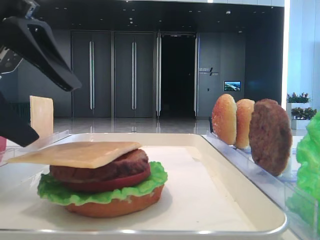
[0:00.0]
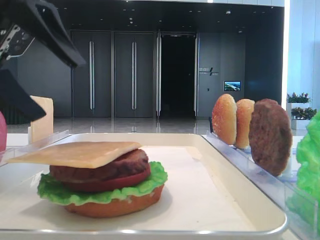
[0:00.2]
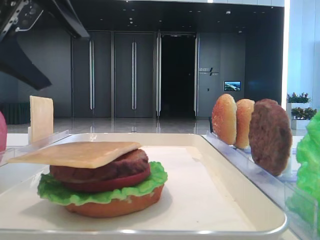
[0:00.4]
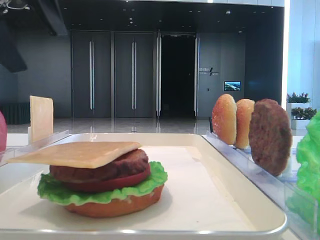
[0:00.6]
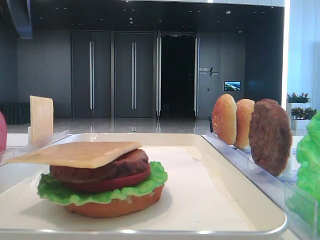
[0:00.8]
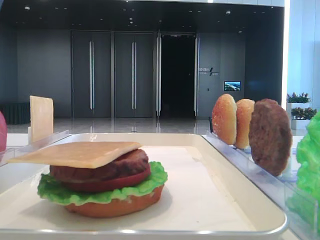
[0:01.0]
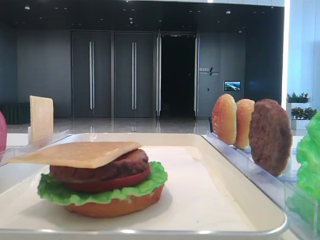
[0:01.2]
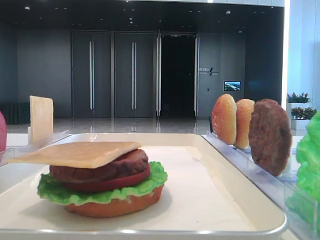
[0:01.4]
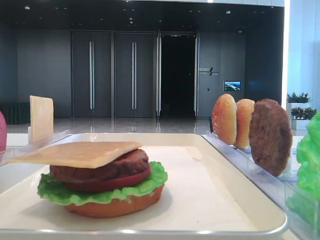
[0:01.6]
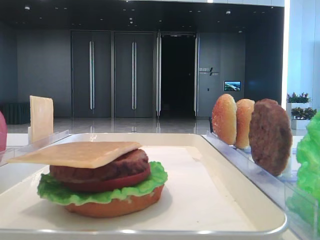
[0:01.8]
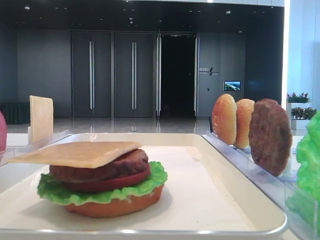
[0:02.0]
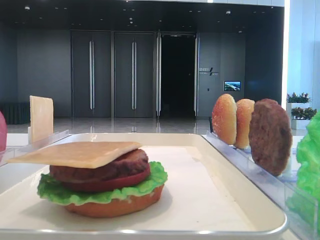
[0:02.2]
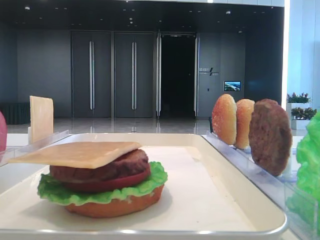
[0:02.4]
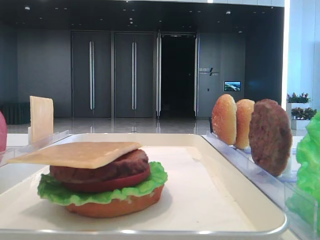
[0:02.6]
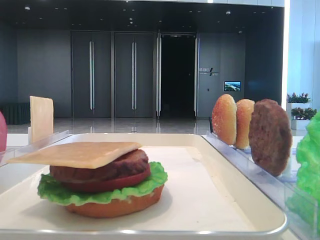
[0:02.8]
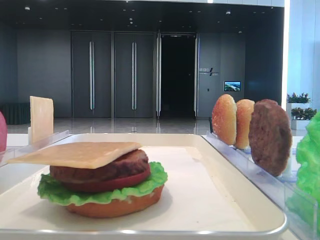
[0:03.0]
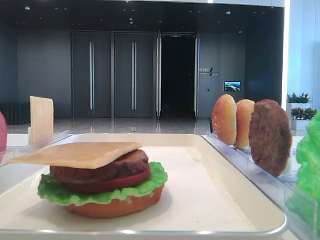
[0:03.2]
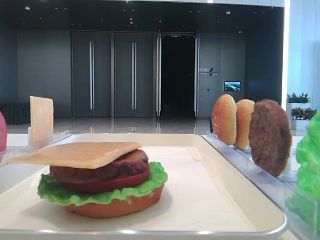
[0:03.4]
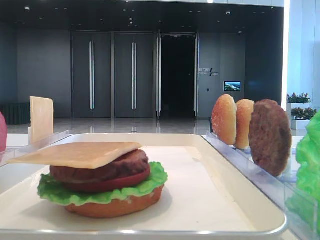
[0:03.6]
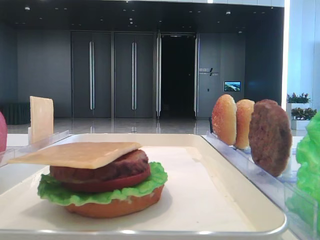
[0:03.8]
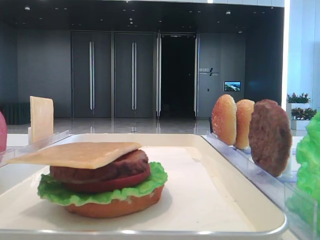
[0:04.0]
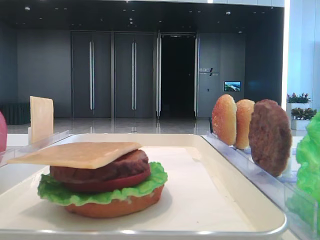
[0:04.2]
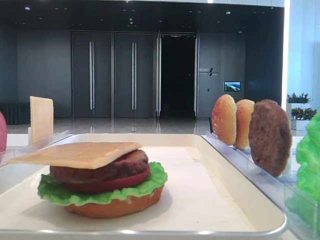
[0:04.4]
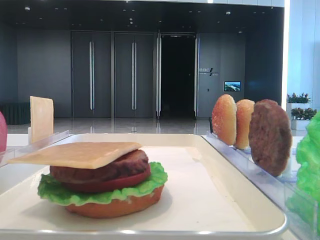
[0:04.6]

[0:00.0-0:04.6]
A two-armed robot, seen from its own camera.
0:00.0 to 0:01.6: The left gripper heads upward, to the left and forward, covering approximately 20 cm.

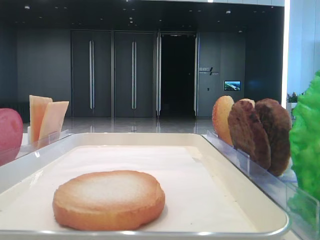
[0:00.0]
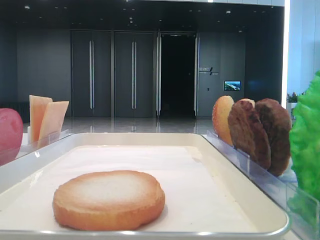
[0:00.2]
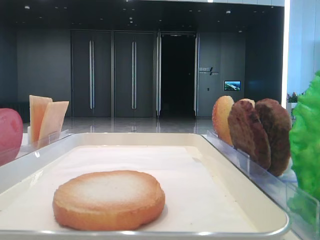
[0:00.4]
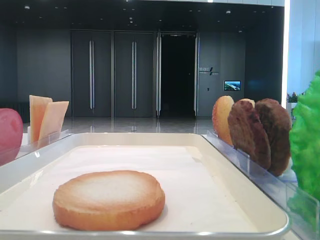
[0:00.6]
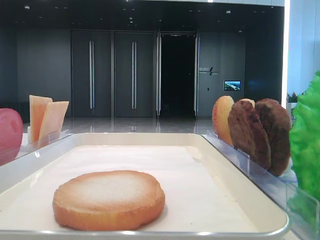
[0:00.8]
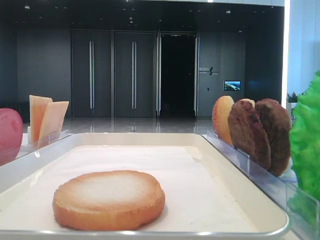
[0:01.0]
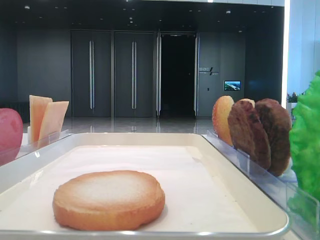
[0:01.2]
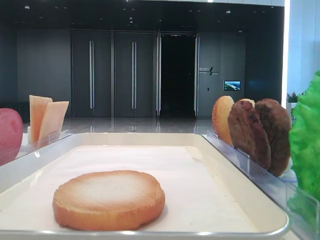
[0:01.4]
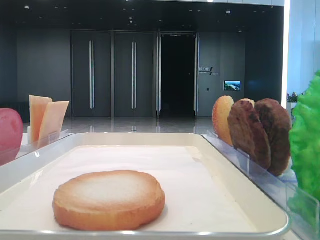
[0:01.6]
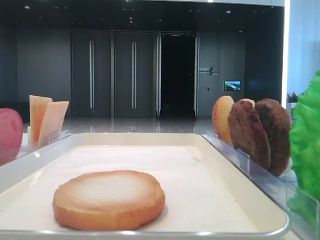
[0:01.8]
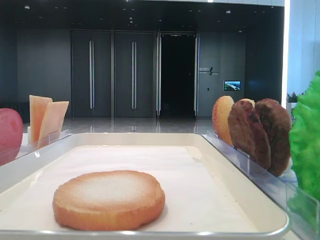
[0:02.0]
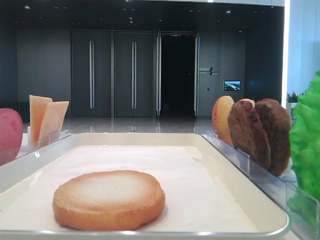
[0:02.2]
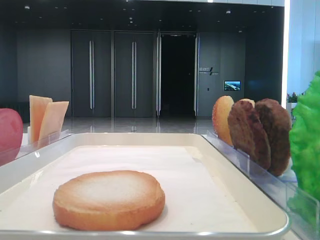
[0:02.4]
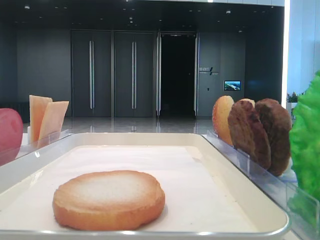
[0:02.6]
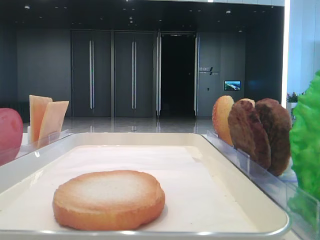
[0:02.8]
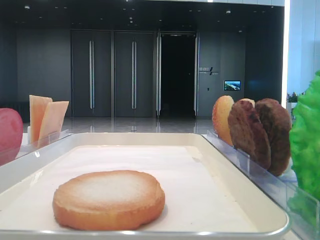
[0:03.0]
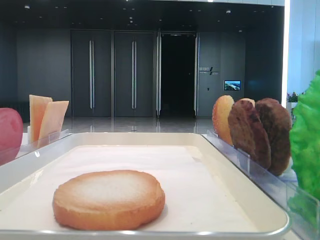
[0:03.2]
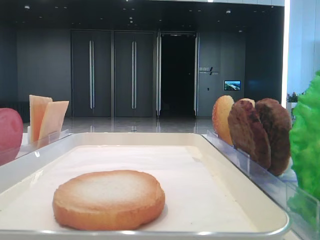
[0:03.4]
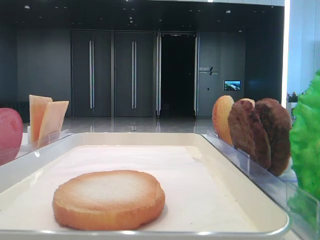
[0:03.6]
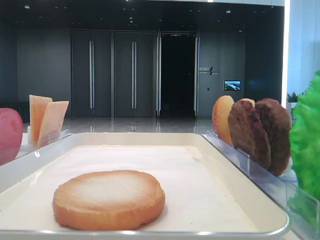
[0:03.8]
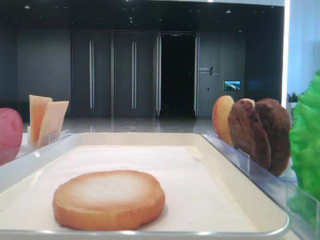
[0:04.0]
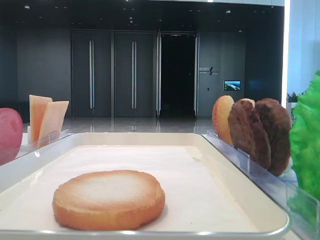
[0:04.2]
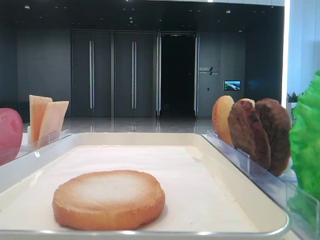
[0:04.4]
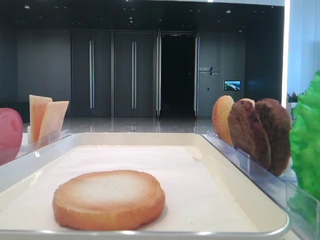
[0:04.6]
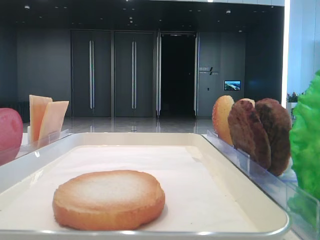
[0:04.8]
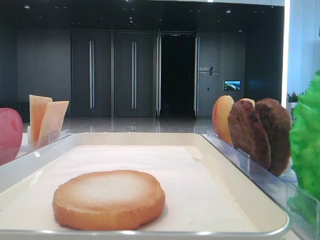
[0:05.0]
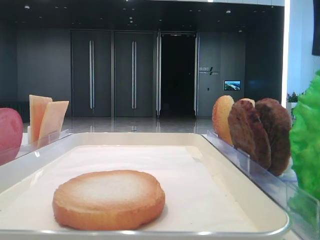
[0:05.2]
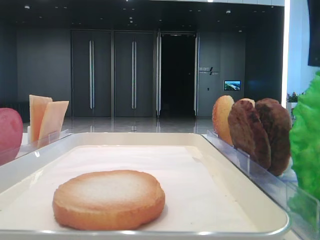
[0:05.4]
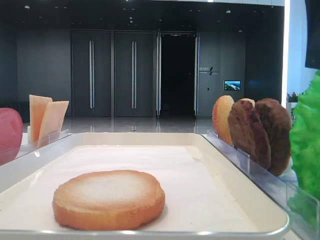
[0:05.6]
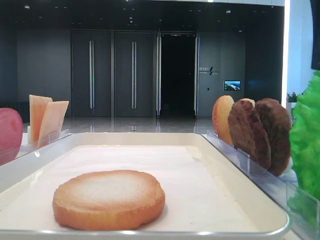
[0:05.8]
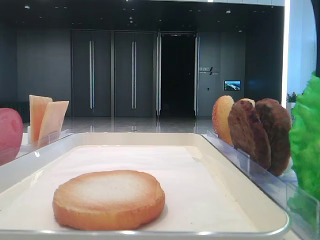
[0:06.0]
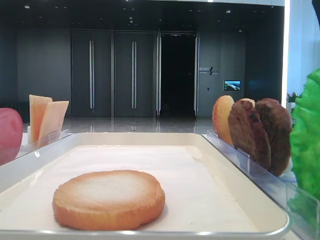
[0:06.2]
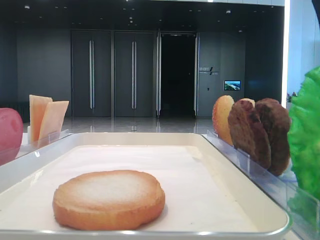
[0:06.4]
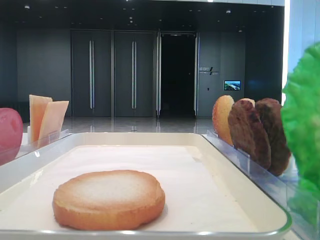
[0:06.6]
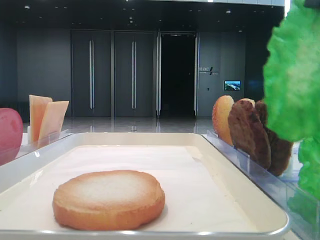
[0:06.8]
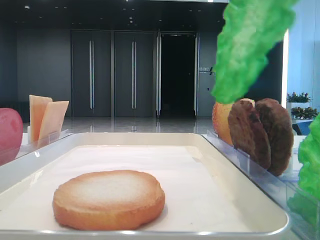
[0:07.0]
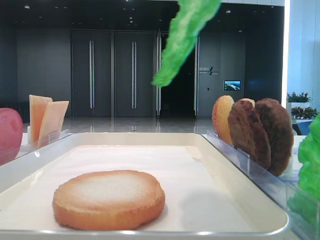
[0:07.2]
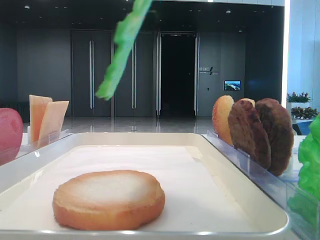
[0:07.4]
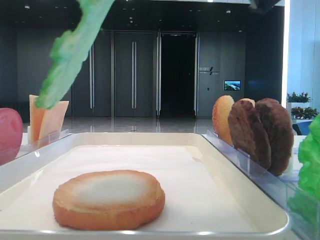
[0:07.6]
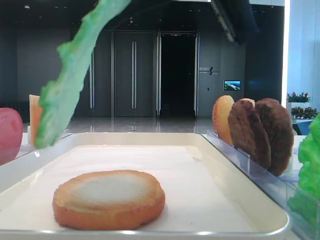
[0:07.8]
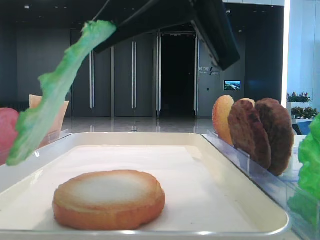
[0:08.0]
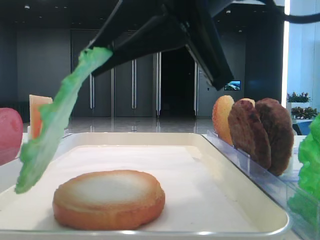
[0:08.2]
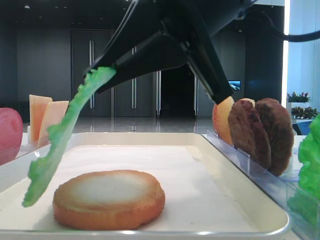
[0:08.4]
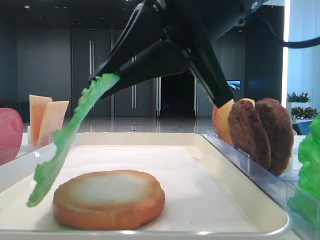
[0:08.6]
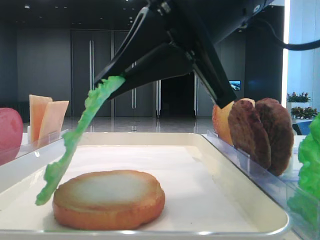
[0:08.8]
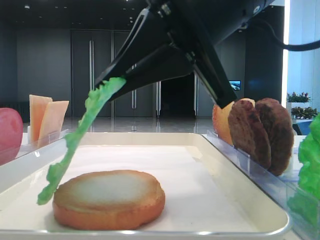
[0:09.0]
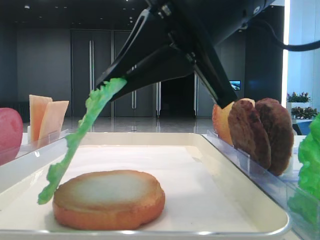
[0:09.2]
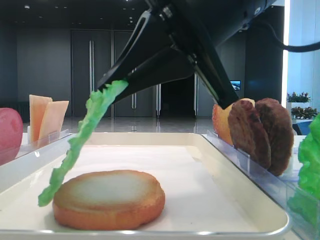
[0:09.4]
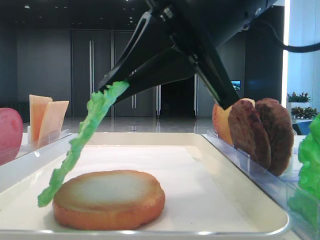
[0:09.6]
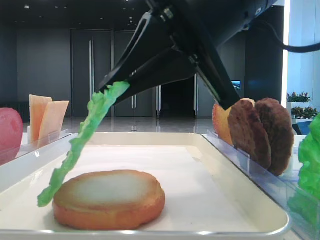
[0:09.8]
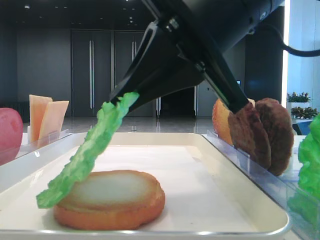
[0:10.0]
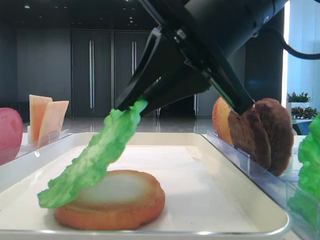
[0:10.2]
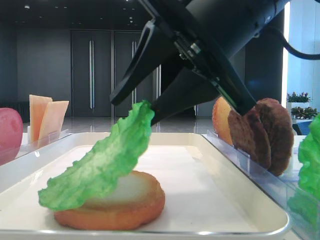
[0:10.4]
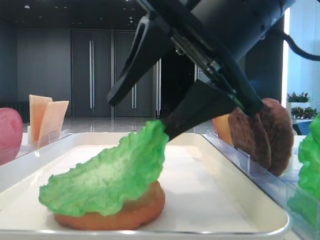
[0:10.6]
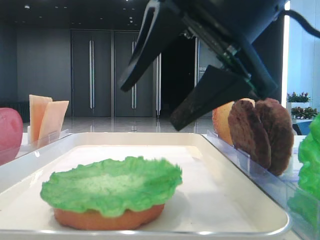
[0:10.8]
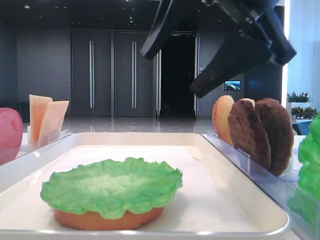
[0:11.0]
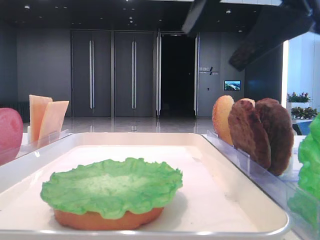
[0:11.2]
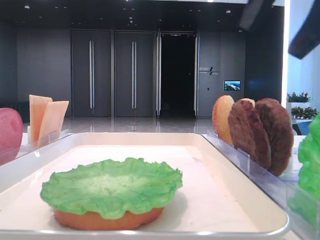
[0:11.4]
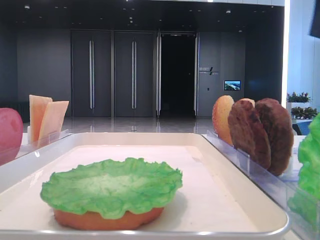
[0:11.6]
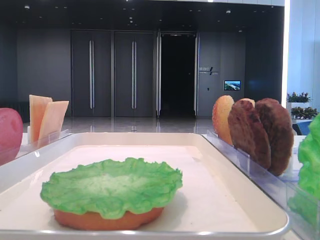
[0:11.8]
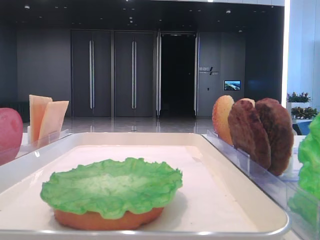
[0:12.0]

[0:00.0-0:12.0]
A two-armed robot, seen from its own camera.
Step, 0:06.4 to 0:10.6: Place the lettuce leaf on the bottom bread with the right hand.
0:06.0 to 0:07.6: The right gripper travels to the left by about 5 cm.
0:07.6 to 0:09.0: The right gripper heads downward, covering about 5 cm.
0:09.0 to 0:10.4: The right gripper opens up.
0:10.4 to 0:12.0: The right gripper moves to the right and upward, about 25 cm, and opens.

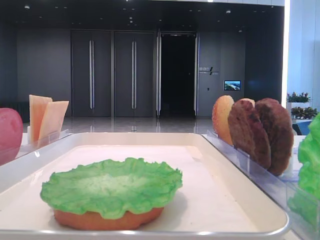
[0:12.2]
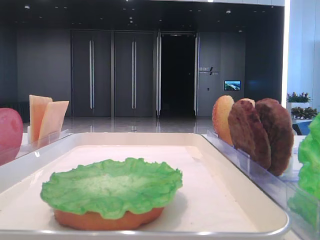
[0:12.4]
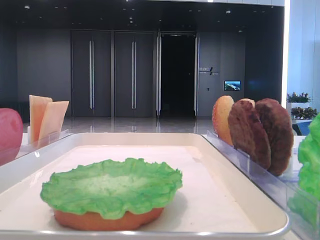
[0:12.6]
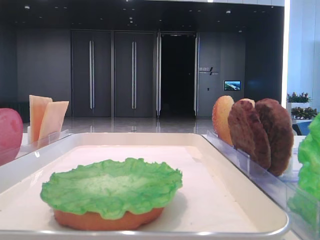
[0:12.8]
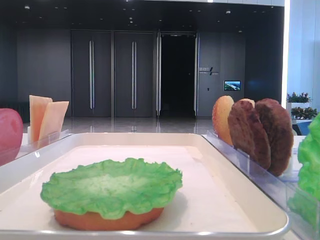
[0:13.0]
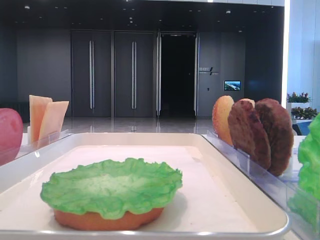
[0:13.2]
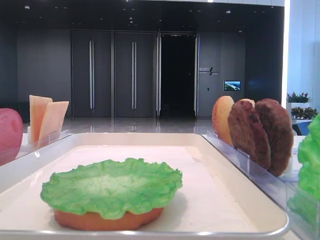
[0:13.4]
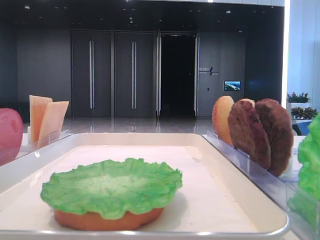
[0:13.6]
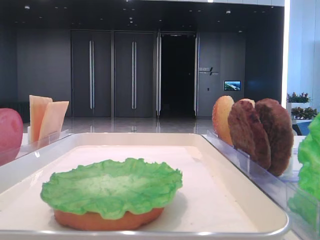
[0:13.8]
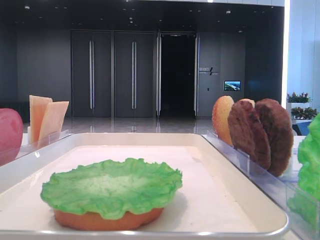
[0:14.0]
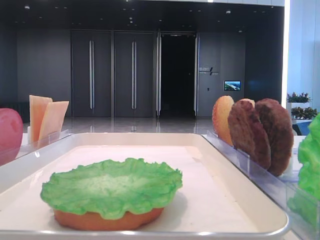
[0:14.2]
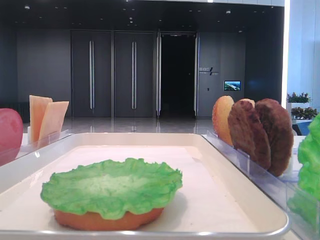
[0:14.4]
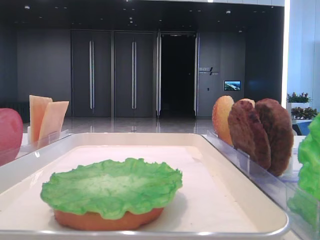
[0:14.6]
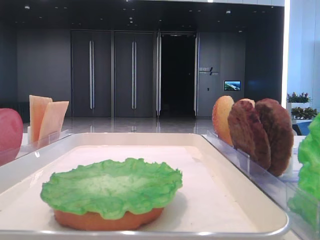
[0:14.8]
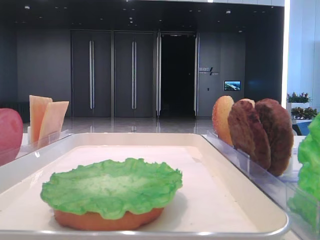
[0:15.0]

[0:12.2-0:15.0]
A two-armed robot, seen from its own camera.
0:13.6 to 0:15.0: Both grippers stay about where they are.

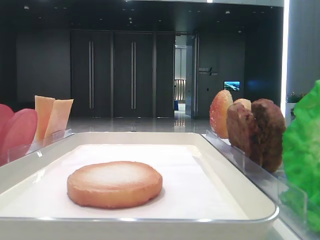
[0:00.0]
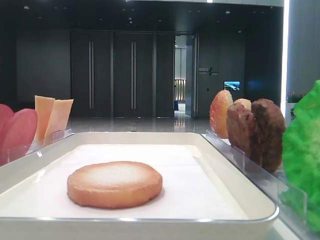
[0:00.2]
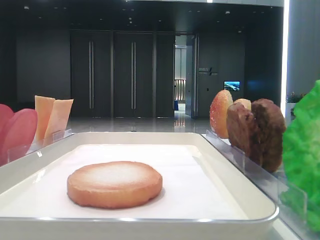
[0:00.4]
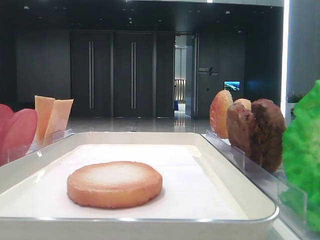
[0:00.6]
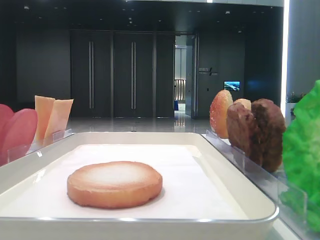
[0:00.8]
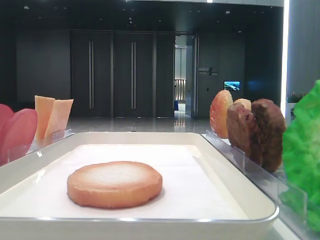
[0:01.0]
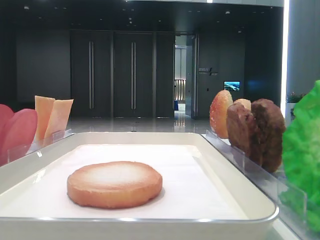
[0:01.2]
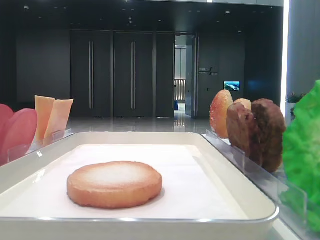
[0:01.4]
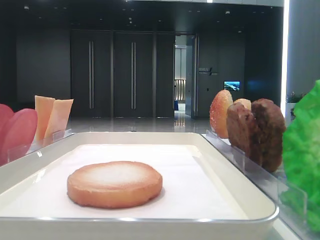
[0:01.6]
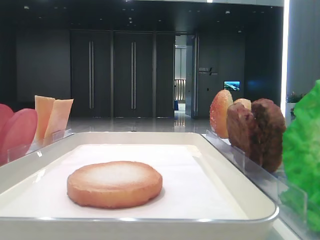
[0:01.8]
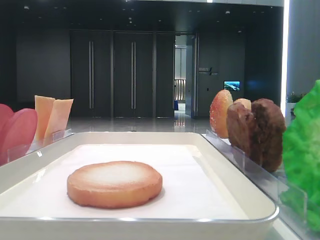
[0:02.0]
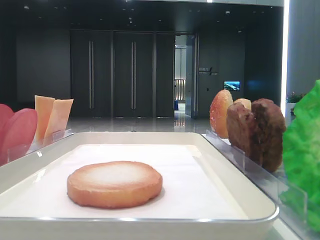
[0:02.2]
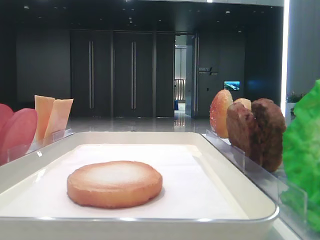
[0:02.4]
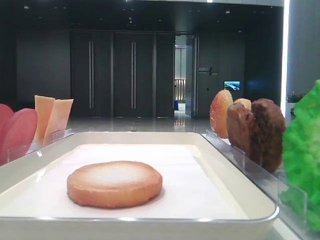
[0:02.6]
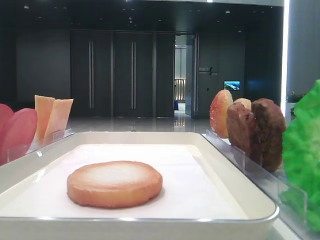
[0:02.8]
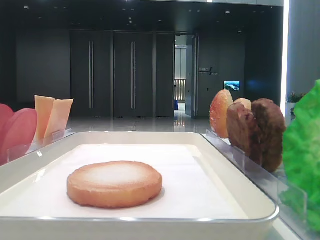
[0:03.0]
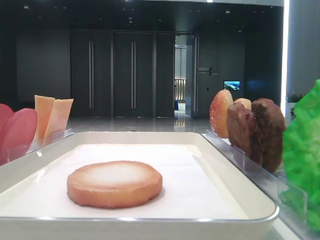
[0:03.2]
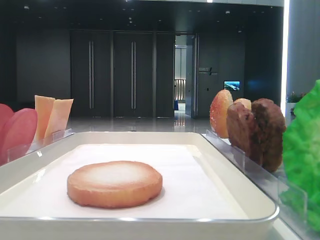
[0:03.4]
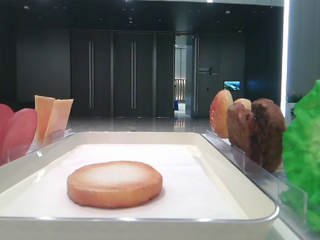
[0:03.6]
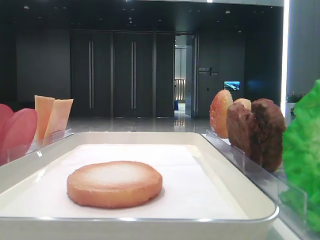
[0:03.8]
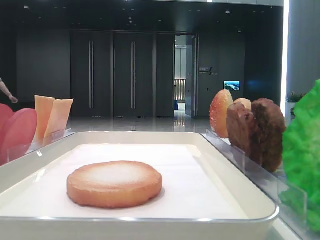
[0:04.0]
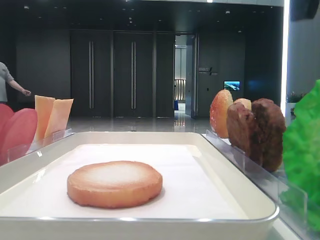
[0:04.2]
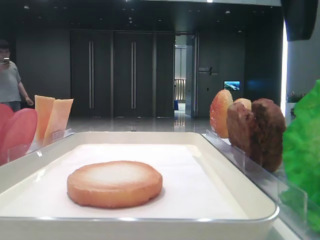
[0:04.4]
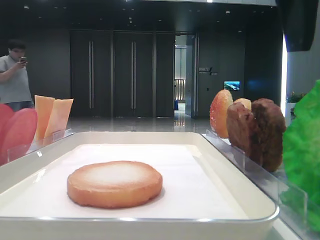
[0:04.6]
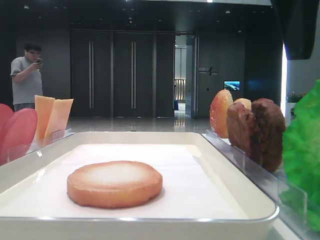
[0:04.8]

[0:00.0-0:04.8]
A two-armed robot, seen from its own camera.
0:03.2 to 0:04.8: The right gripper goes some 15 cm to the left and downward.
